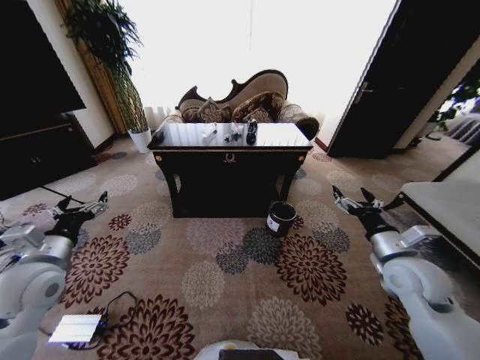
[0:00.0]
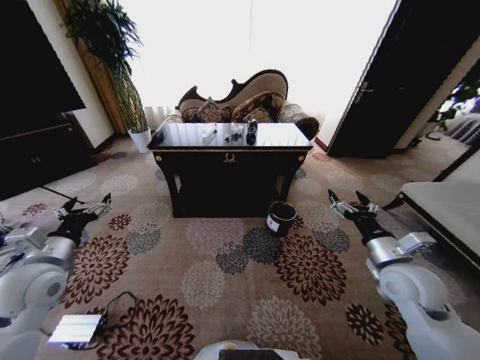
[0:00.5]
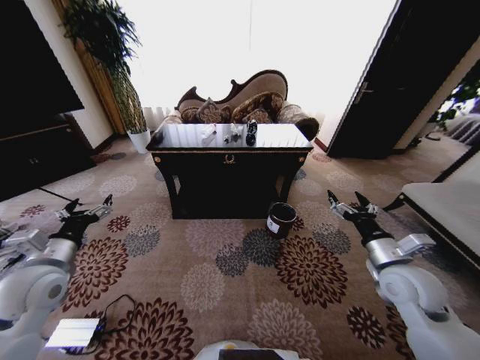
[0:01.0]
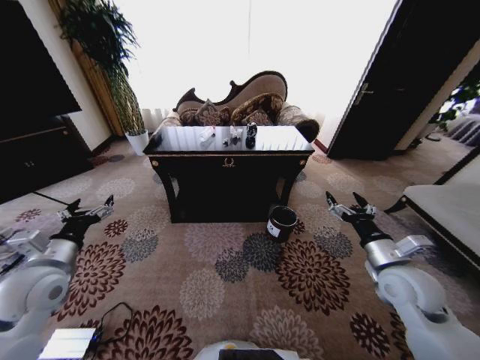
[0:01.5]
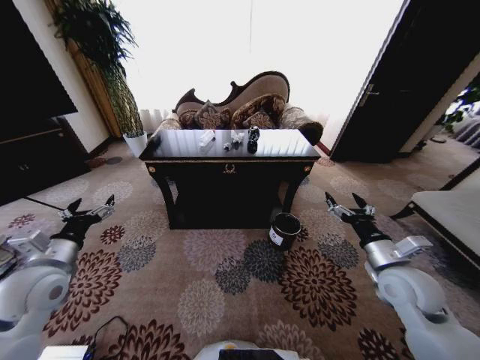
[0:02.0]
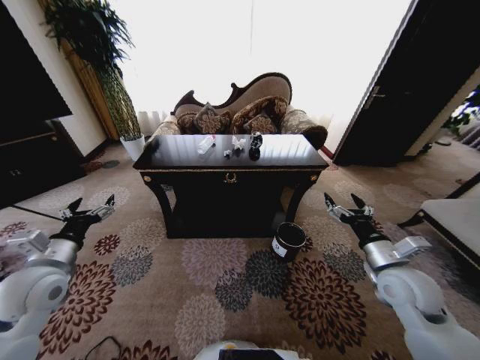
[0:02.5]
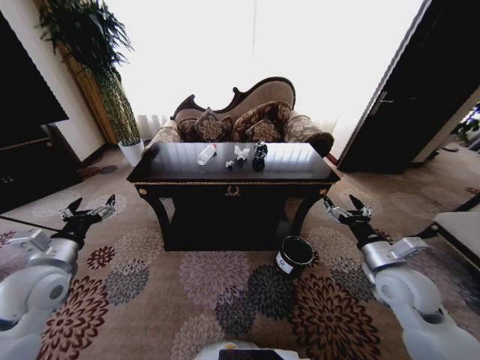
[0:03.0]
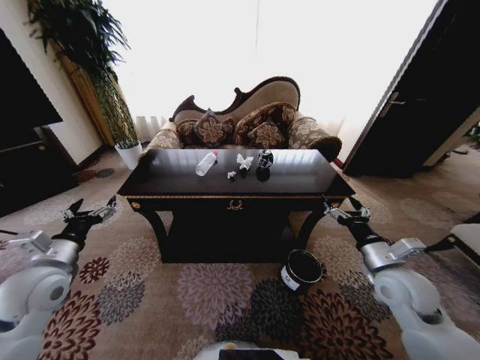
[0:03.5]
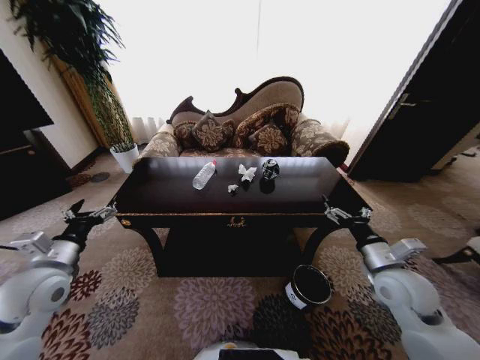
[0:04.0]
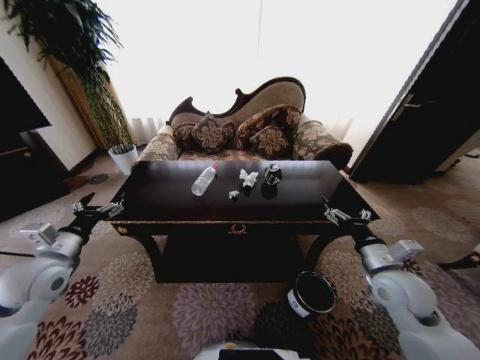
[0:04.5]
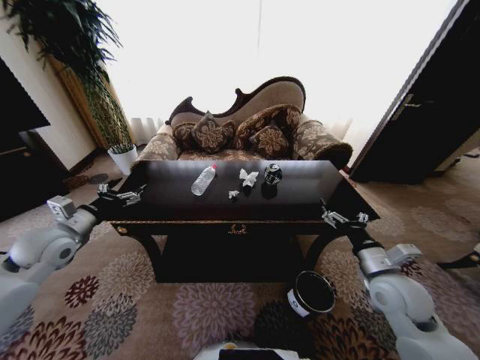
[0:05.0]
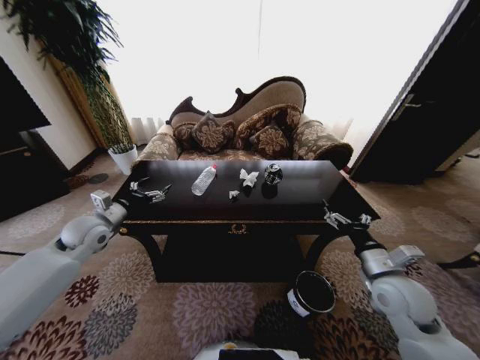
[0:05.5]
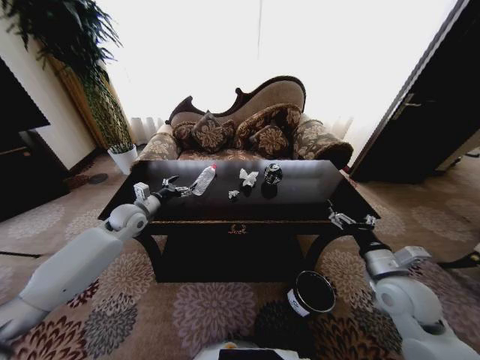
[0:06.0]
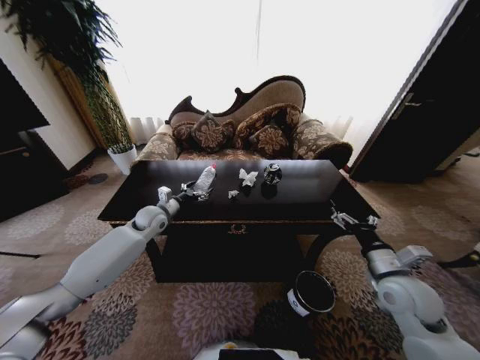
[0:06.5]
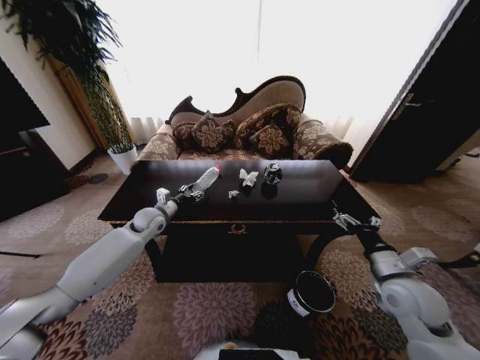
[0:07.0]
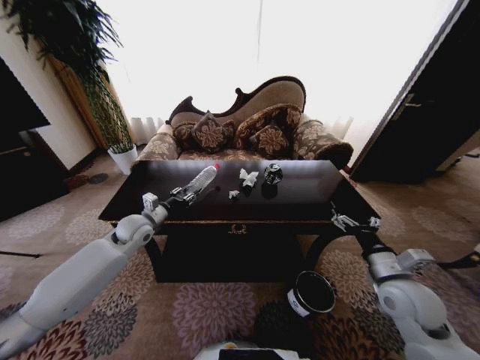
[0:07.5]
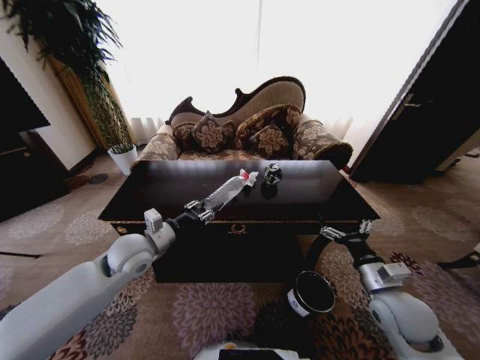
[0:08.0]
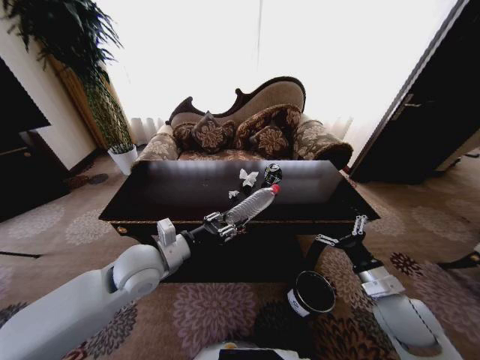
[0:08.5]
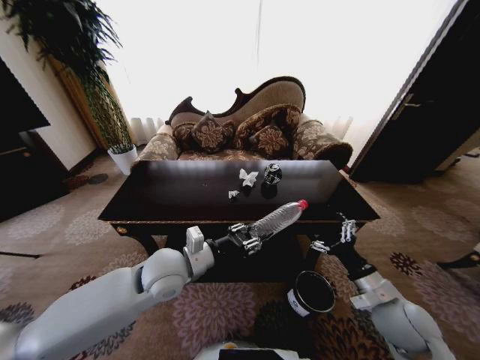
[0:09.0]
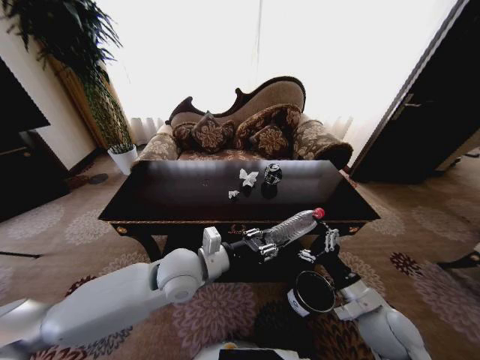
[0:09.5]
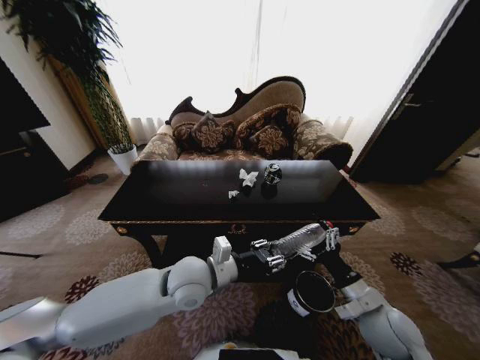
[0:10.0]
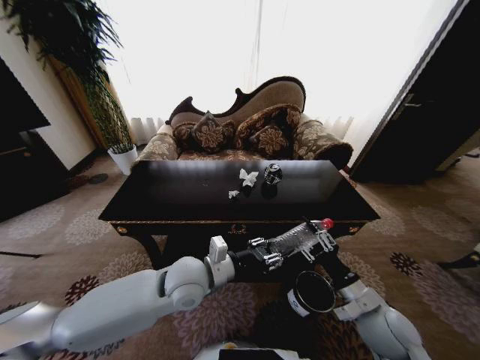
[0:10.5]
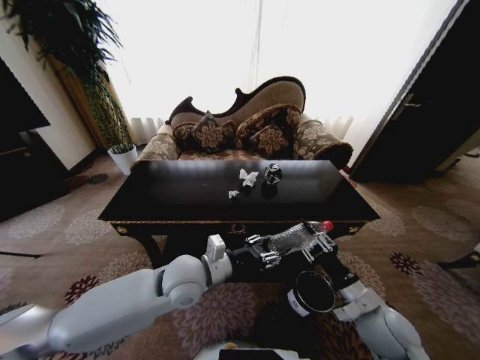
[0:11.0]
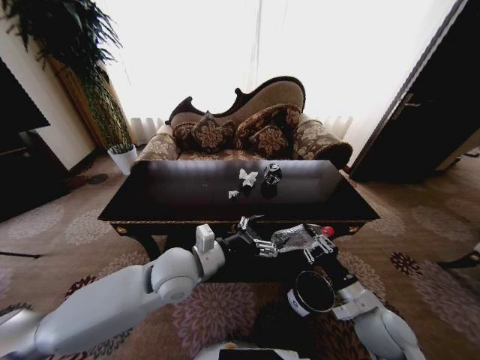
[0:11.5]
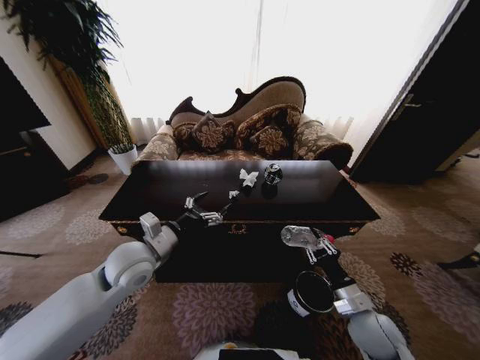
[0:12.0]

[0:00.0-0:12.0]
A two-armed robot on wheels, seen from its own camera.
Task of the whole recording: Move to the front of the table and place the trash on the table into the trash bin.
0:04.0 to 0:06.0: The left gripper travels forward by some 20 cm.
0:06.0 to 0:08.0: The left gripper heads backward and to the right, covering some 15 cm, and closes its fingers.
0:08.0 to 0:10.0: The left gripper travels to the right by approximately 15 cm.
0:10.0 to 0:12.0: The left gripper travels to the left by roughly 15 cm, and opens its fingers. The right gripper closes.

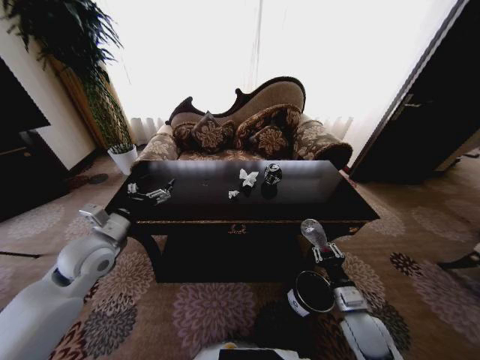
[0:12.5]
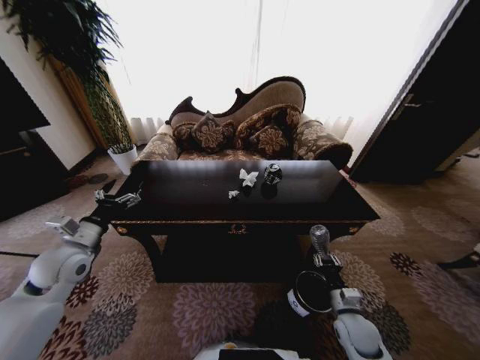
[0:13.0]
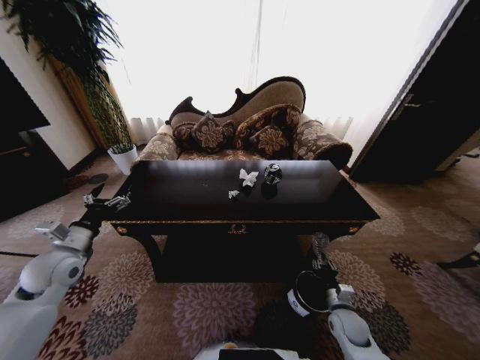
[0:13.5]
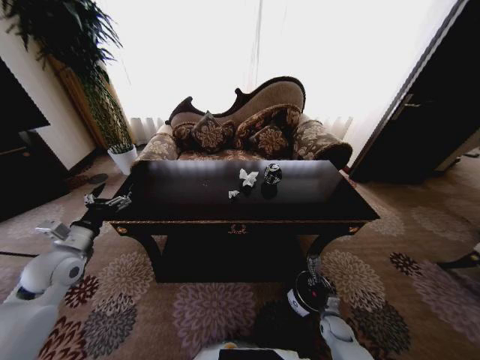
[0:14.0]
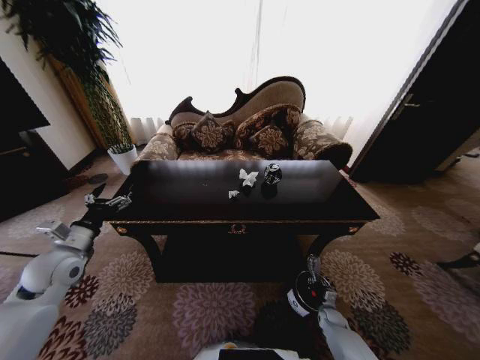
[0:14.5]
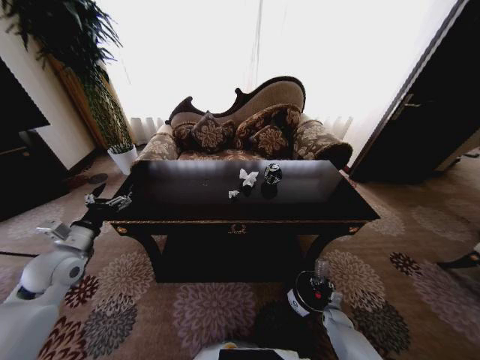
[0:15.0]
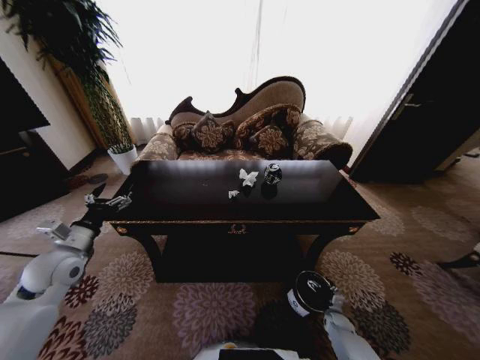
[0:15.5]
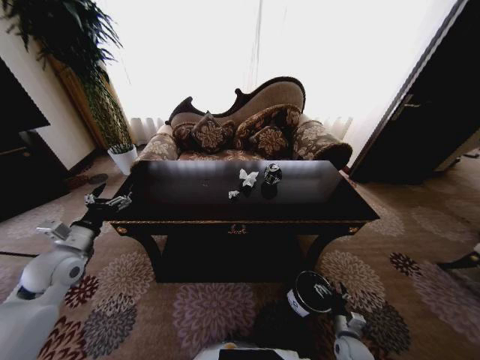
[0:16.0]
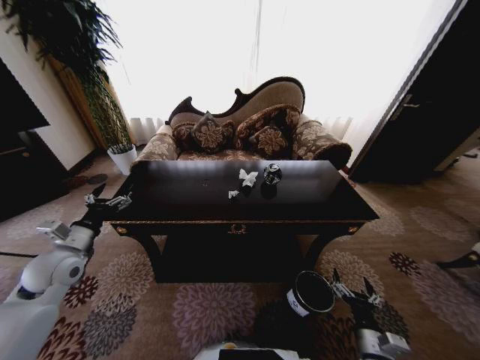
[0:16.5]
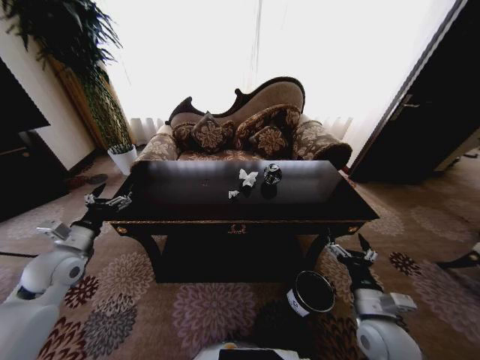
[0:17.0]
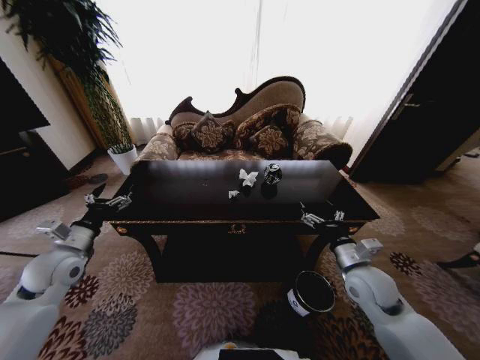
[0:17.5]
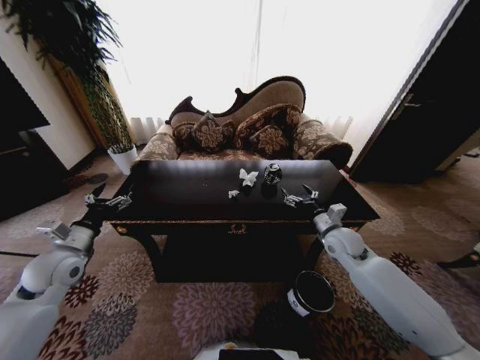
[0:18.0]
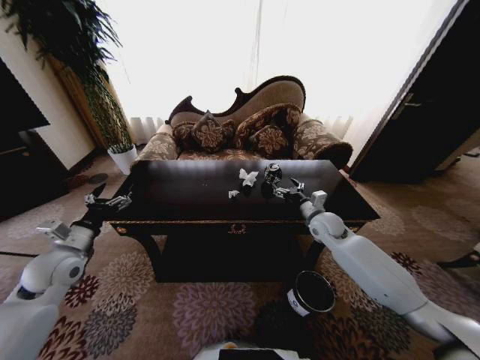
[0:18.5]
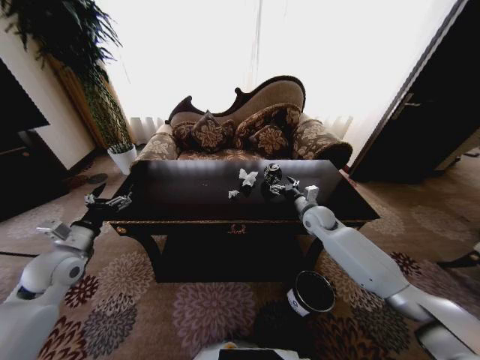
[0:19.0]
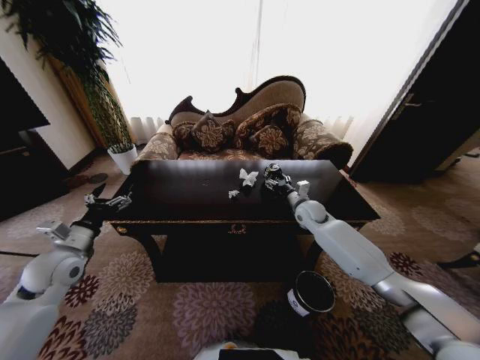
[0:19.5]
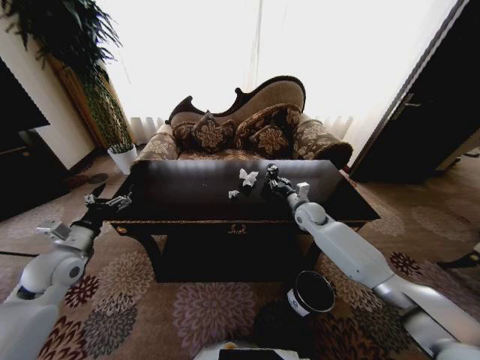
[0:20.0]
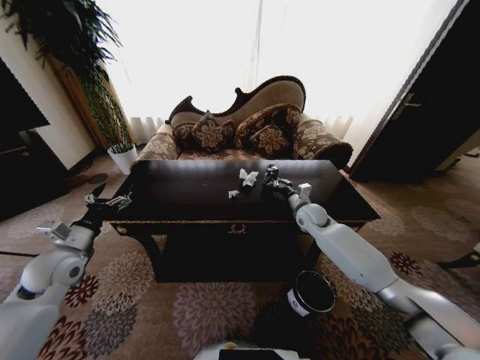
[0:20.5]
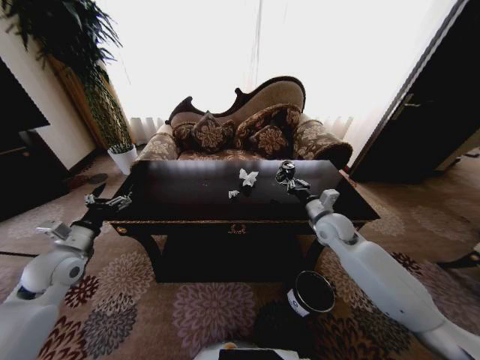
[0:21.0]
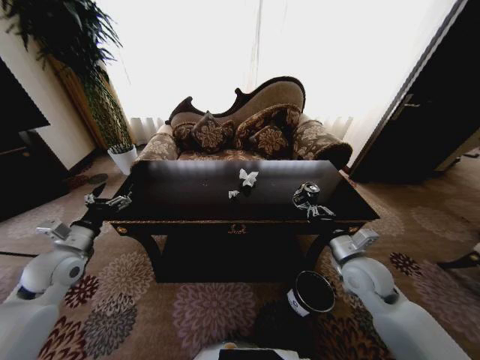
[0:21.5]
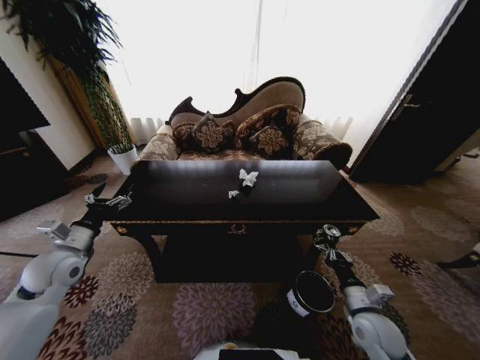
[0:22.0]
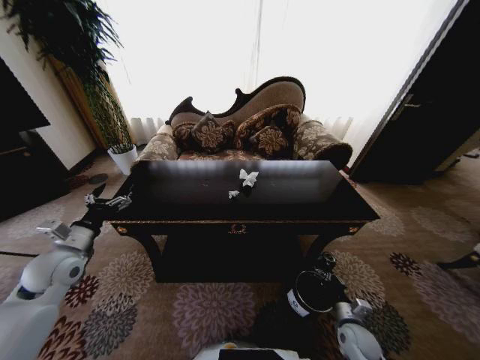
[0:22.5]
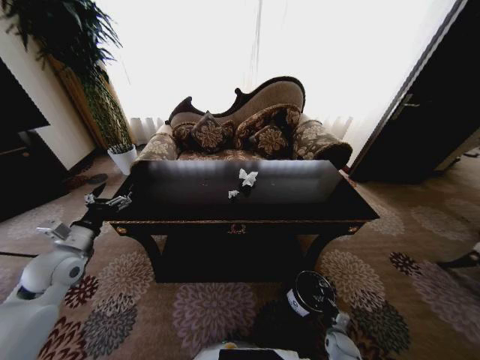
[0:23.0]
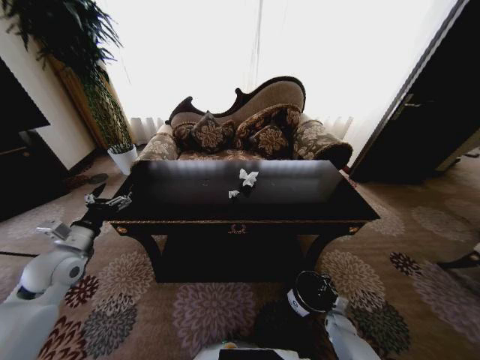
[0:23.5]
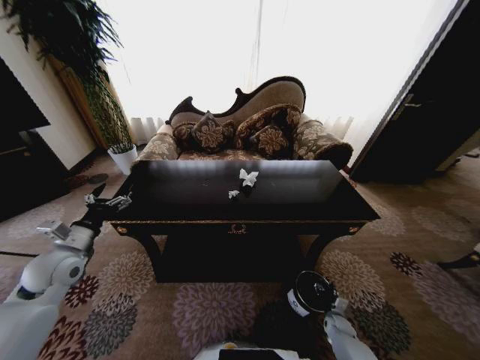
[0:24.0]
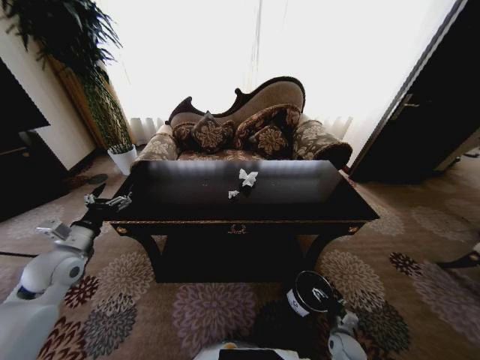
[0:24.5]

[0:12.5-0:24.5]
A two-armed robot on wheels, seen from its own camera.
Task of the whole recording: Move to the front of the table and place the trash on the table into the trash bin.
0:12.5 to 0:14.5: The right gripper travels downward by approximately 25 cm; the left gripper travels to the left by some 10 cm.
0:14.5 to 0:16.5: The right gripper moves upward and backward, approximately 25 cm, and opens up.
0:16.5 to 0:18.5: The right gripper is displaced forward and upward by roughly 40 cm.
0:18.5 to 0:20.5: The right gripper changes place by some 5 cm, and closes up.
0:20.5 to 0:22.5: The right gripper goes about 40 cm backward and downward.
0:22.5 to 0:24.5: The right gripper travels downward by some 10 cm, and opens up.

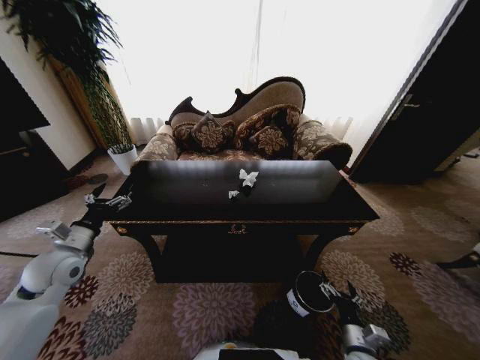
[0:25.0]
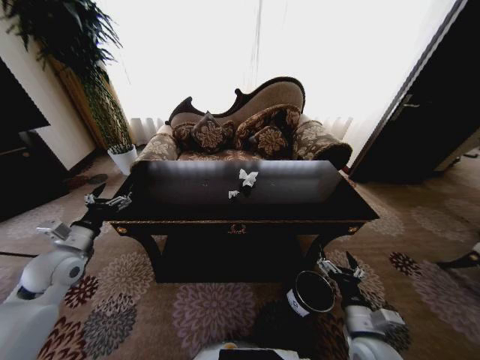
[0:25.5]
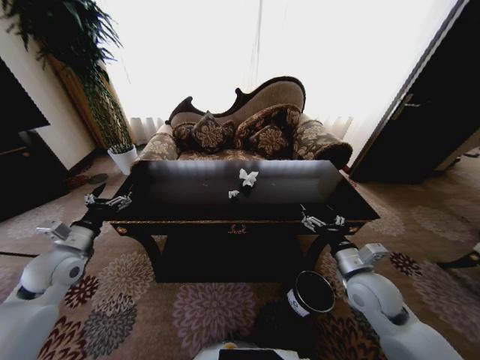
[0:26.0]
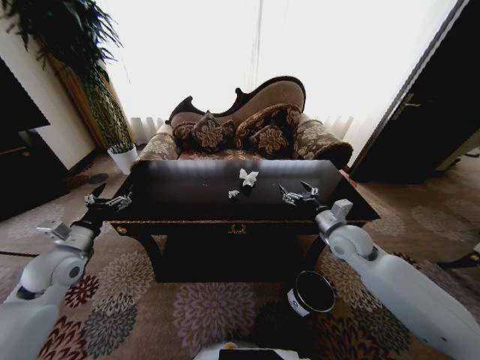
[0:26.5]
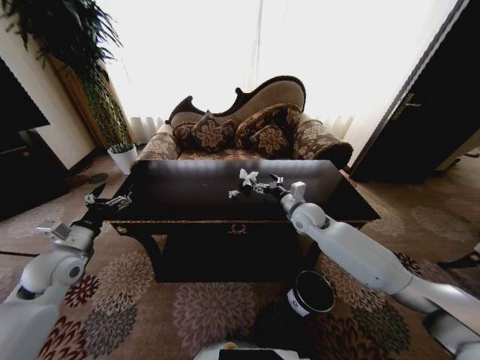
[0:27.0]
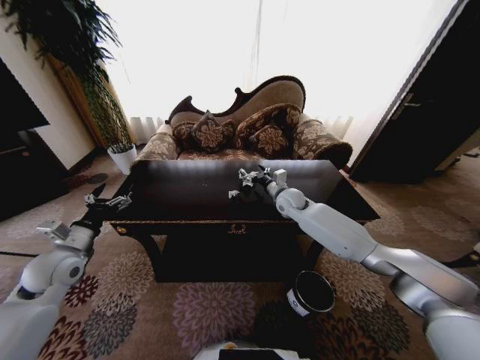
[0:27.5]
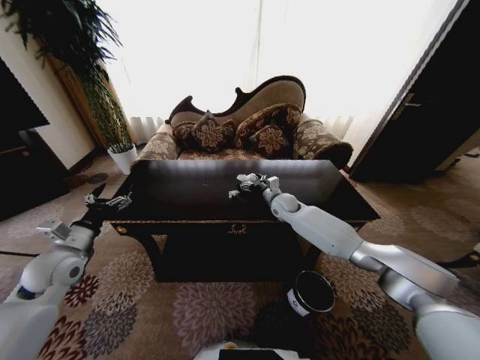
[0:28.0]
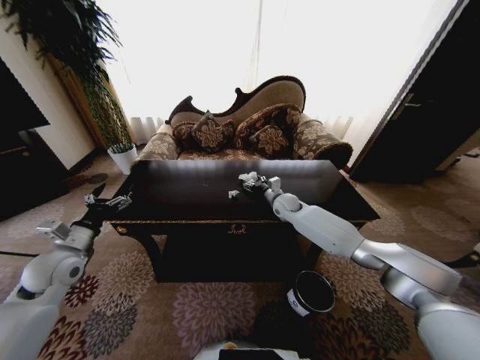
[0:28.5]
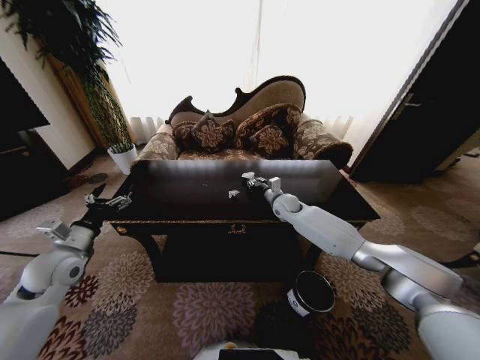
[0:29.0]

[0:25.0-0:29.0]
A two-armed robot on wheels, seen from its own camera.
Task of the whole recording: Move to the front of the table and place the trash on the table into the trash bin.
0:25.0 to 0:27.0: The right gripper is displaced forward and upward by about 40 cm.
0:27.0 to 0:29.0: The right gripper goes roughly 10 cm forward, and closes up.
